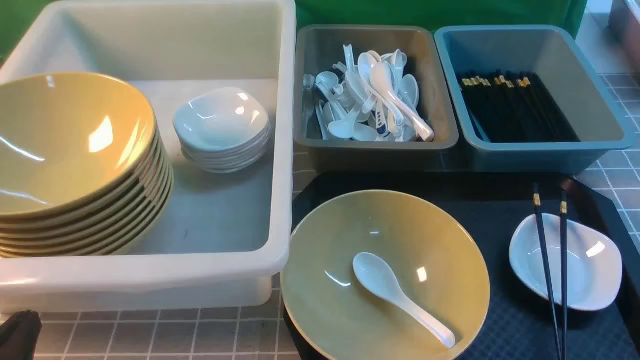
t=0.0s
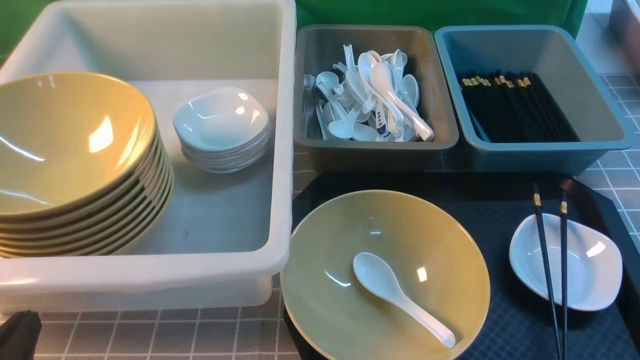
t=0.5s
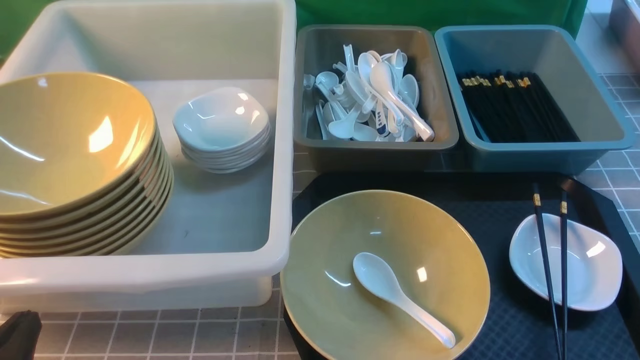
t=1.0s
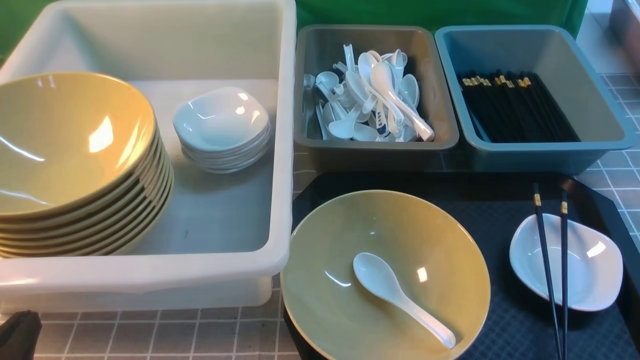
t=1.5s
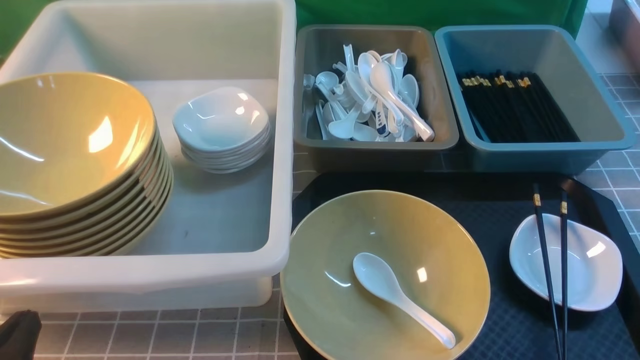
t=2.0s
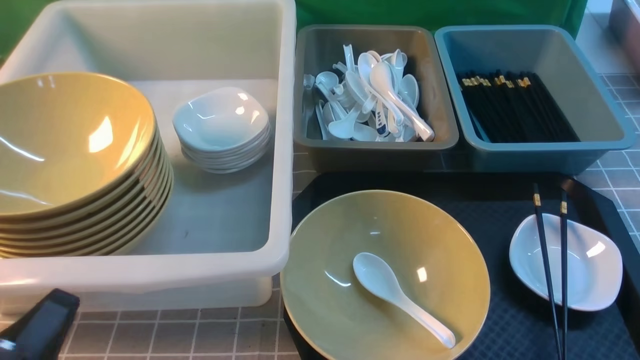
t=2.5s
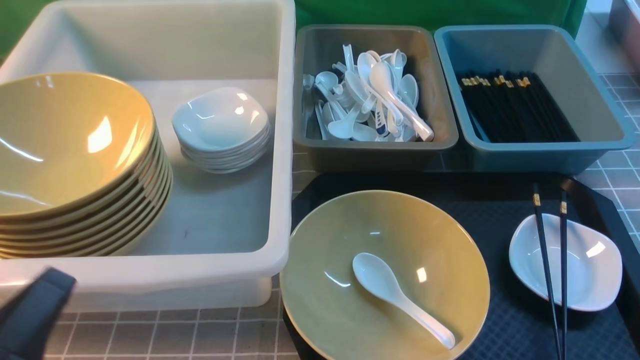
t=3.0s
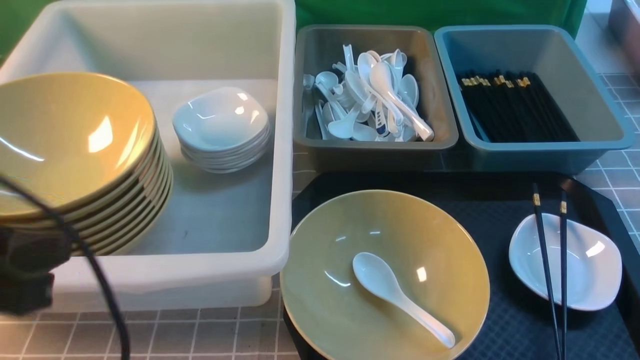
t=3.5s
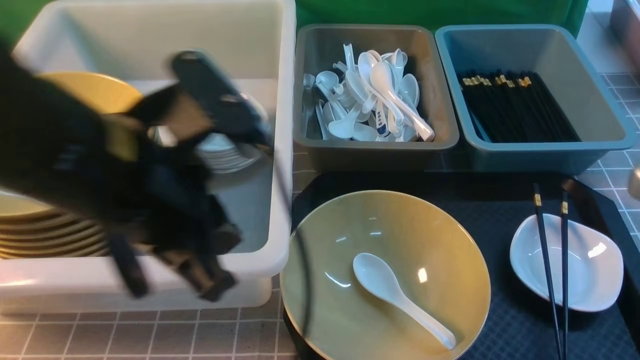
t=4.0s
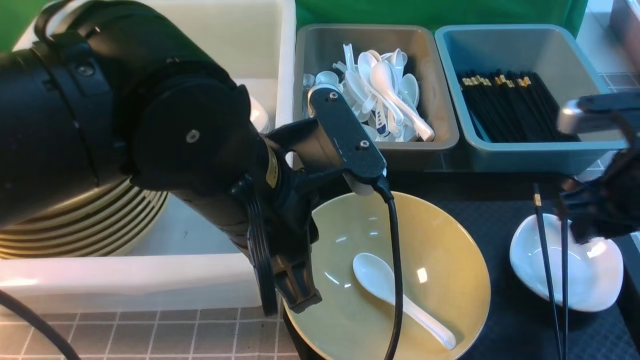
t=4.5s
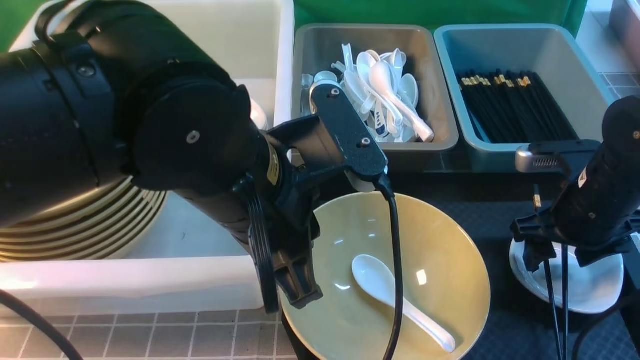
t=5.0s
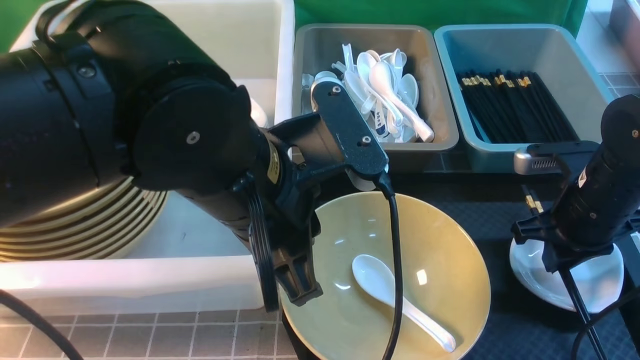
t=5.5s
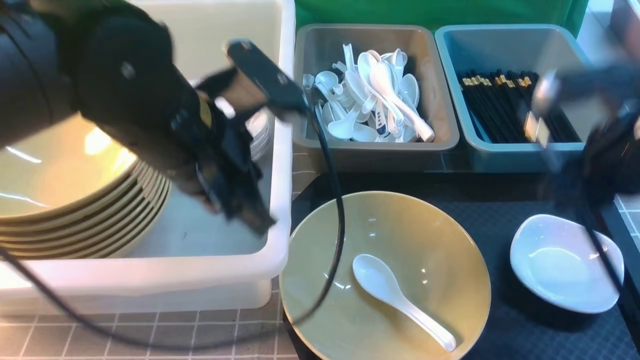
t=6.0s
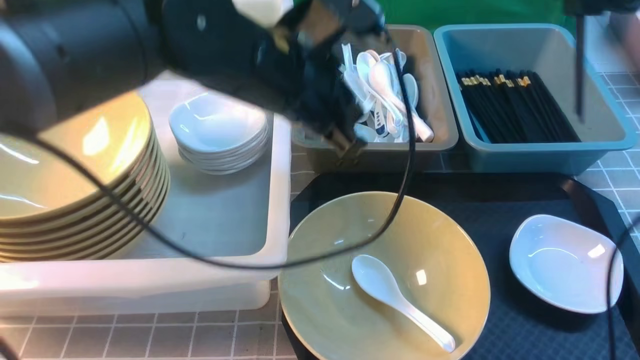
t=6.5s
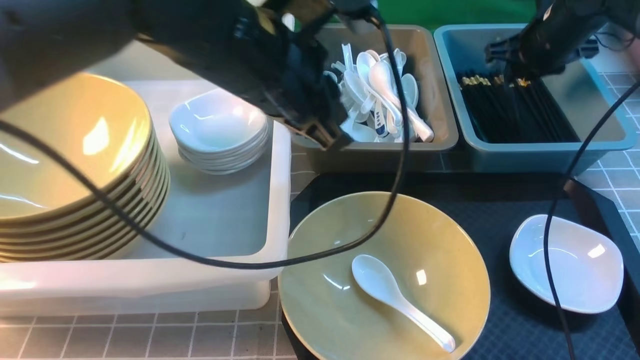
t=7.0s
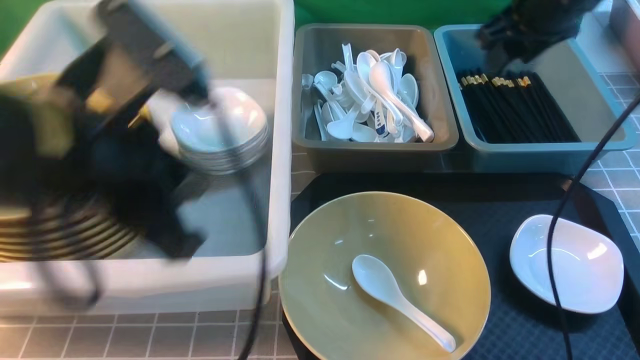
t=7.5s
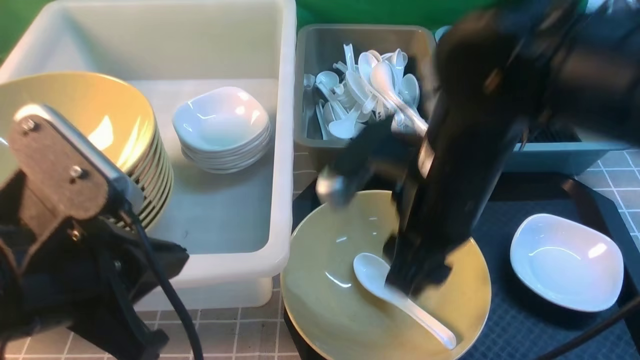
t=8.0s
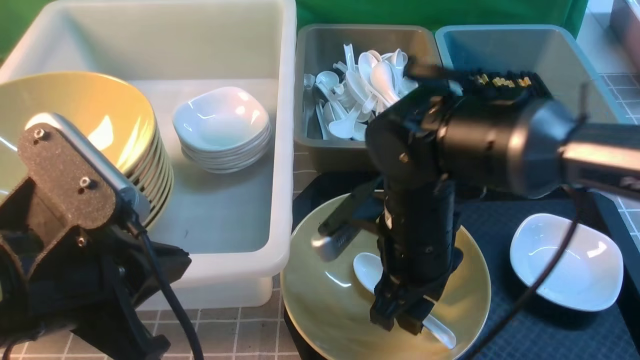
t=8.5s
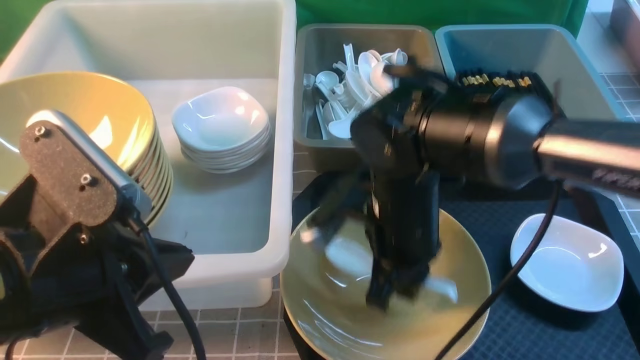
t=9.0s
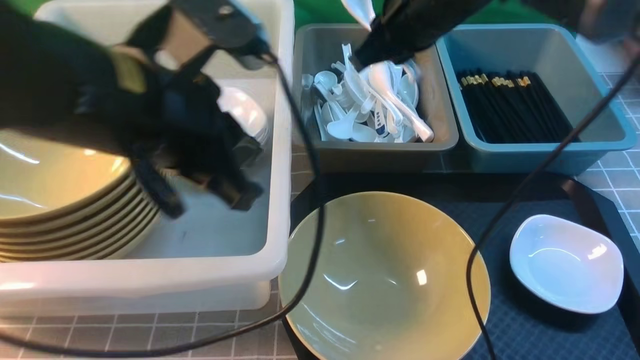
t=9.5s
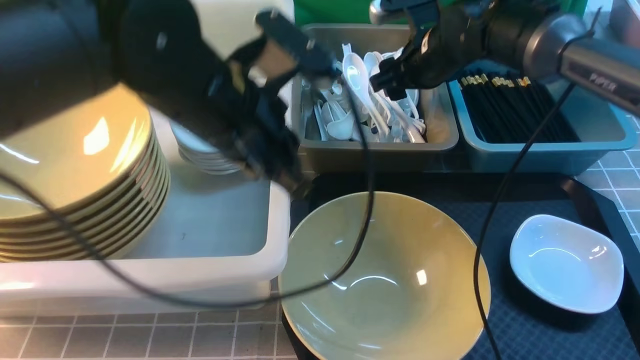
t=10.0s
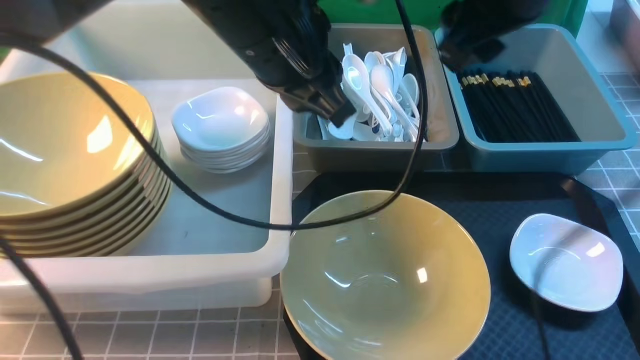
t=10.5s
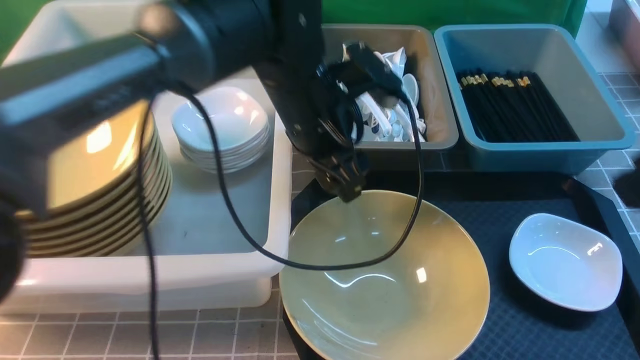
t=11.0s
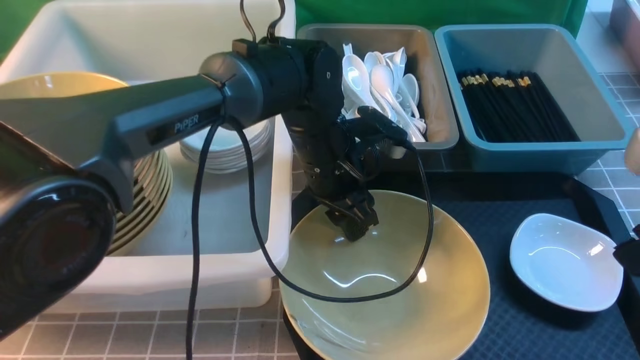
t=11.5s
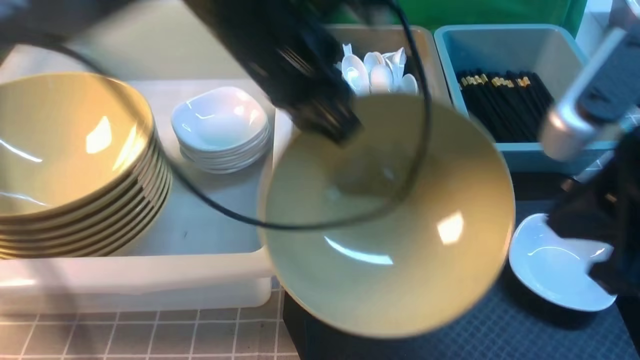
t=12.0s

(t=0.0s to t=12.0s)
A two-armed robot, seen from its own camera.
Task of the whole recording: on grey table put chopsticks spoon bowls plates into blue grey white boxes.
Step, t=0.0s - t=6.0s: use the right arm to grab the chopsticks.
Step, t=6.5s - t=7.0s: use the right arm to put the chopsticks into the small storage box on the right.
Step, t=7.5s - t=9.0s: use the right arm to grab the soup spoon in the middle.
Step, t=9.5s - t=10.0s: use the right arm to put the soup spoon into the small storage box in the middle.
Step, t=10.5s - t=11.5s: use the left arm to grab the yellow noodle bowl on the left.
t=2.0s - t=4.0s: The left gripper is displaced upward, to the right and forward by some 25 cm; the right gripper is displaced forward and upward by about 20 cm, and closes up.
t=4.0s - t=6.0s: The right gripper shifts some 10 cm forward, and opens, then closes once more; the left gripper shifts about 5 cm forward.
t=6.0s - t=8.0s: The right gripper is displaced to the left by approximately 15 cm, reaches about 20 cm forward, then returns, and opens its fingers; the left gripper moves backward and to the left, about 15 cm.
t=8.0s - t=10.0s: The left gripper is displaced forward and to the right by approximately 20 cm; the right gripper travels forward by some 20 cm, and closes and opens again.
t=10.0s - t=12.0s: The left gripper reaches some 10 cm downward, then returns, and opens, then closes again; the right gripper is displaced backward by about 30 cm, and closes up.

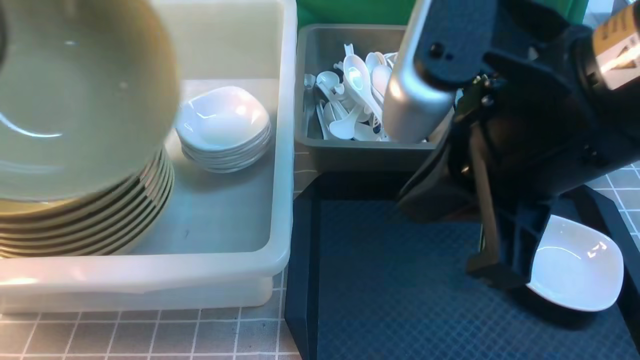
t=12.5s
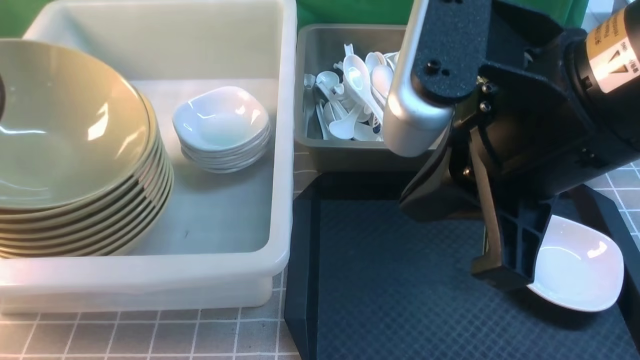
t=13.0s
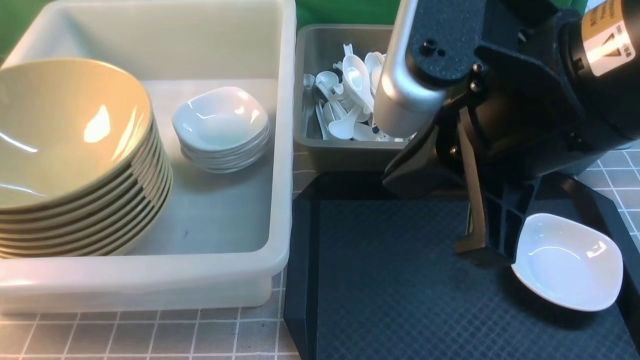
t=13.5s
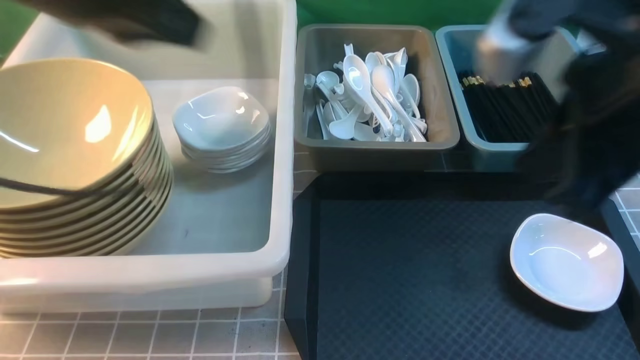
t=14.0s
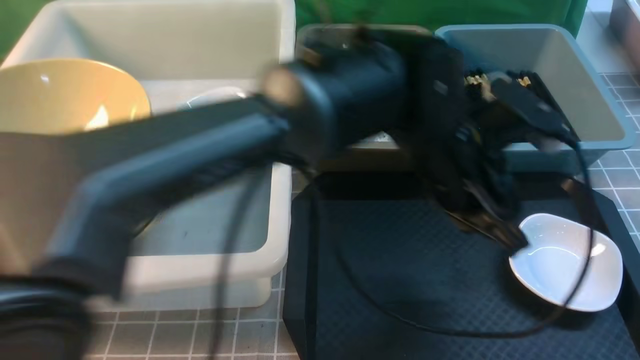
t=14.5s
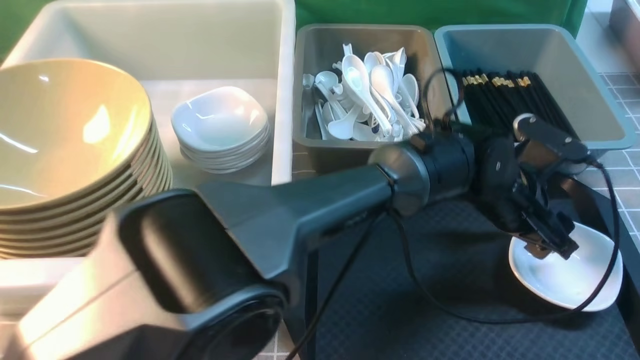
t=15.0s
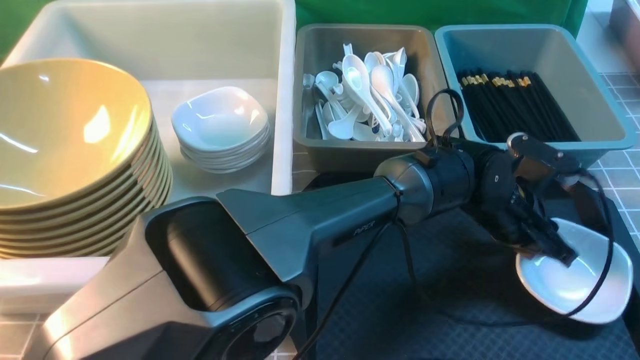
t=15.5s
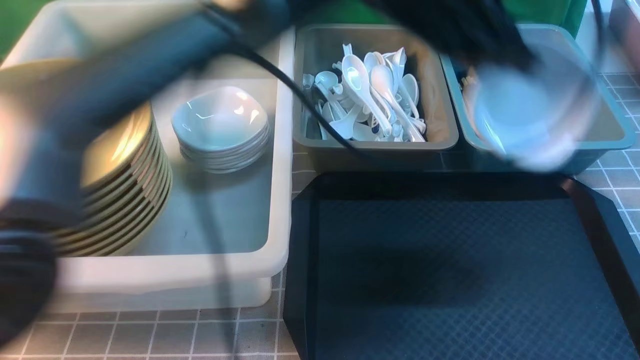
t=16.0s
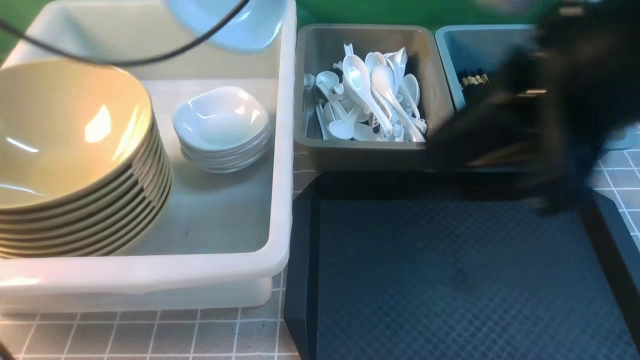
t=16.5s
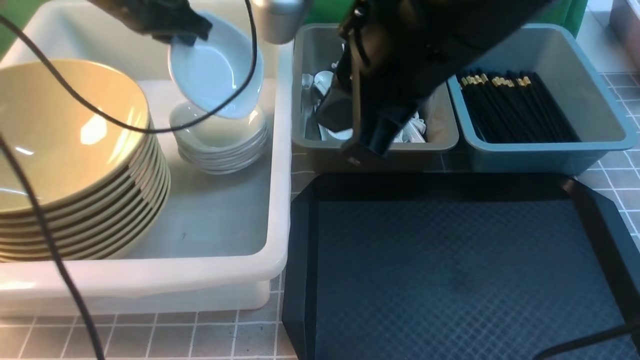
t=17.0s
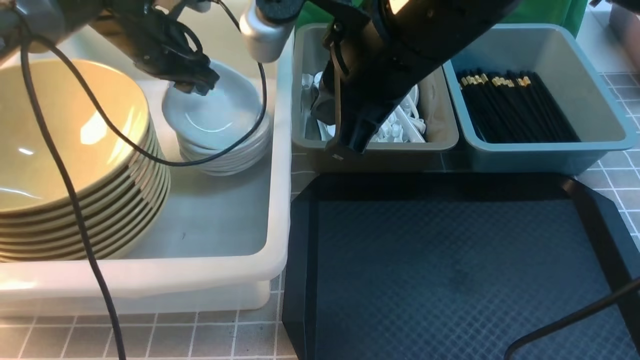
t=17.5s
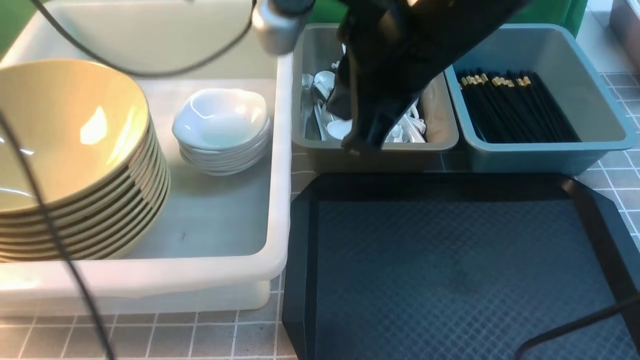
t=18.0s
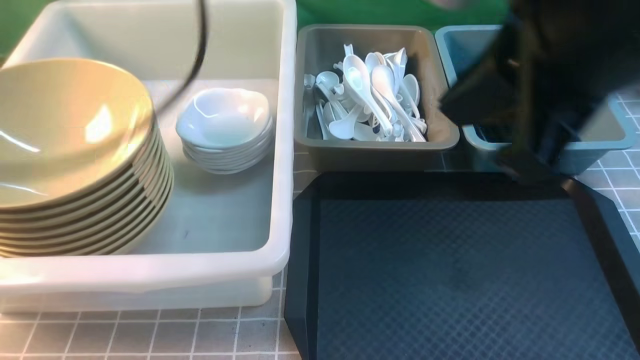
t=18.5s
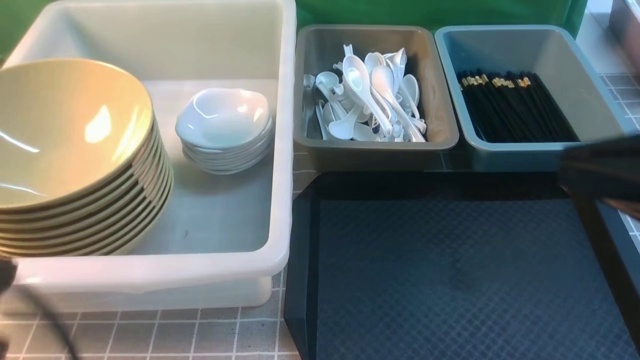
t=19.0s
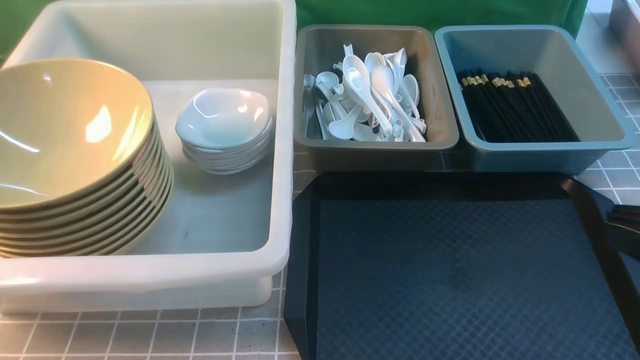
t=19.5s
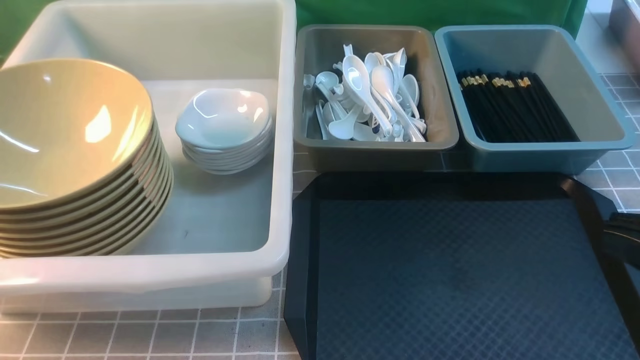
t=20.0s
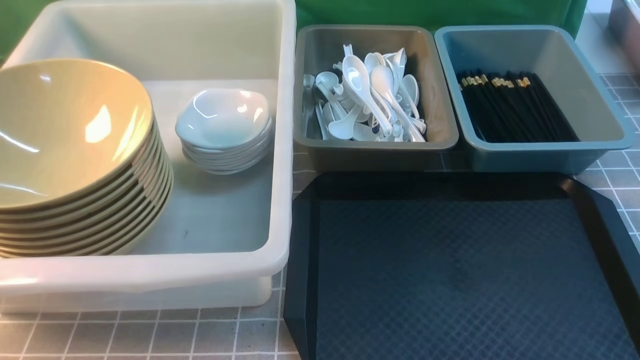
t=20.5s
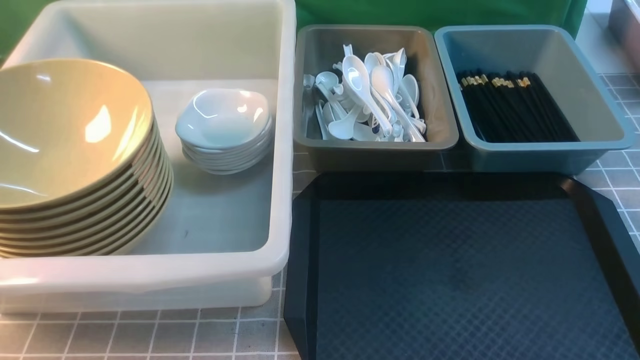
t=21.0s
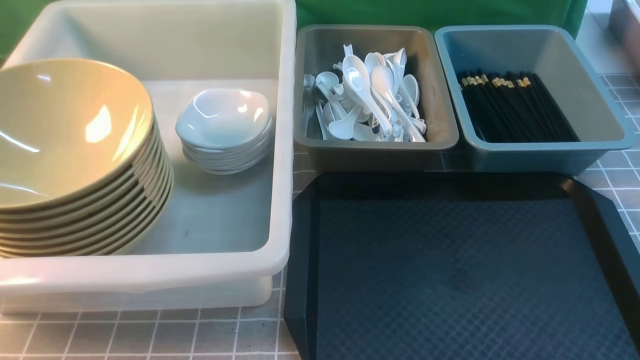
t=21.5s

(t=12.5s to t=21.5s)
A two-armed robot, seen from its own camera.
Task of the whole recording: on grey table put chopsticks spoon bowls plates into blue grey white boxes.
Step, t=13.5s - t=16.0s: use the left arm to grab the plate.
Step, t=16.5s - t=17.5s: use the left arm to put the plate into the large storage box on the left.
t=12.5s - t=14.5s: The right gripper shifts approximately 20 cm to the right and backward; the left gripper moves to the right, approximately 40 cm, and opens, then closes once more.
t=14.5s - t=17.0s: Both grippers move to the left and forward, some 30 cm. The left gripper opens and closes again.
t=17.0s - t=19.5s: The left gripper is displaced backward by approximately 40 cm, and opens, then closes once more. Meanwhile the right gripper shifts about 25 cm to the right and backward.
